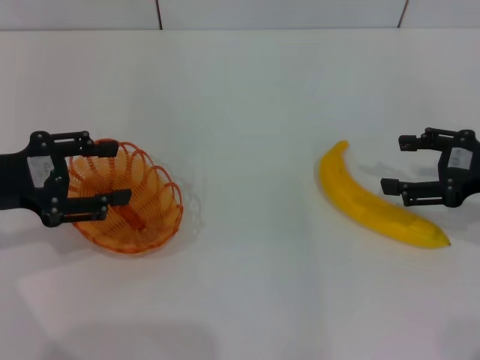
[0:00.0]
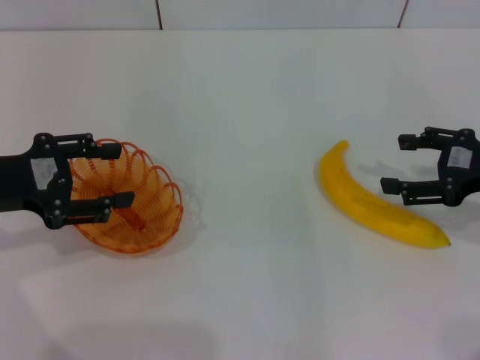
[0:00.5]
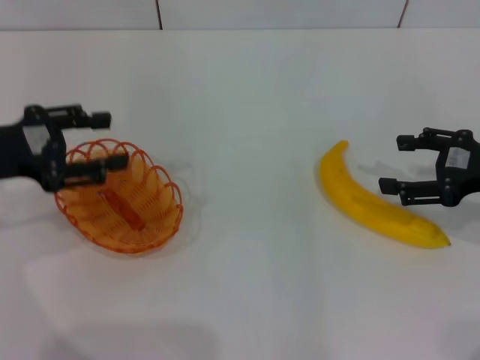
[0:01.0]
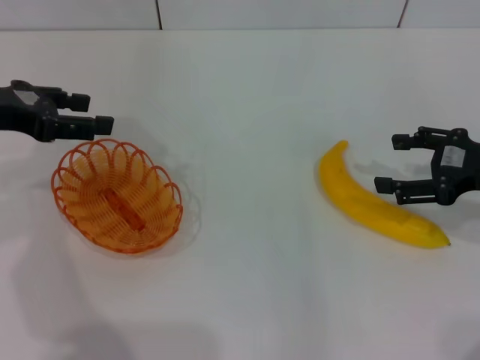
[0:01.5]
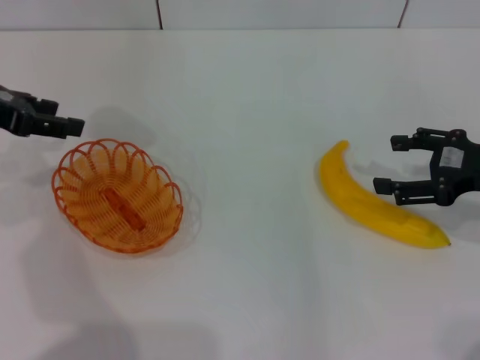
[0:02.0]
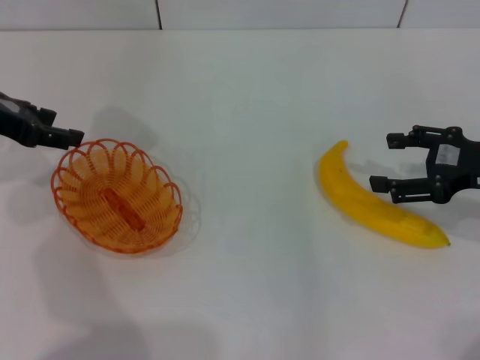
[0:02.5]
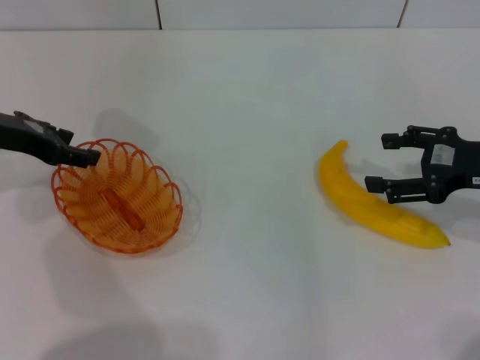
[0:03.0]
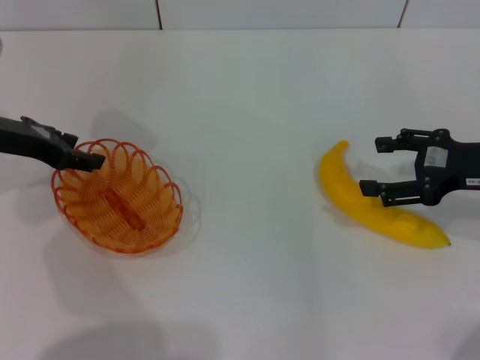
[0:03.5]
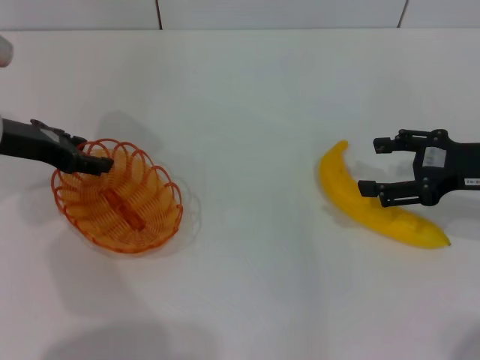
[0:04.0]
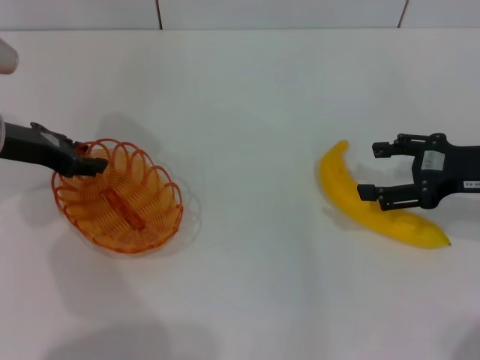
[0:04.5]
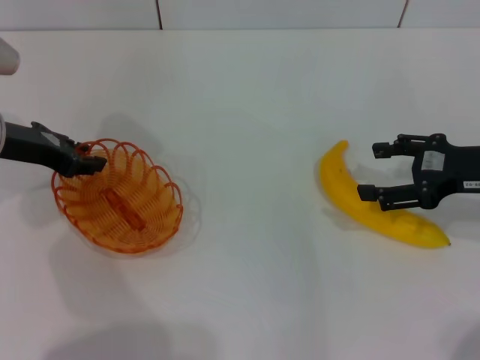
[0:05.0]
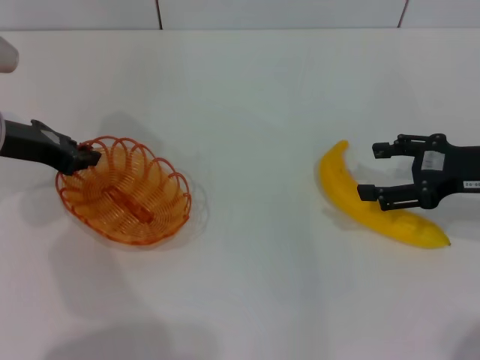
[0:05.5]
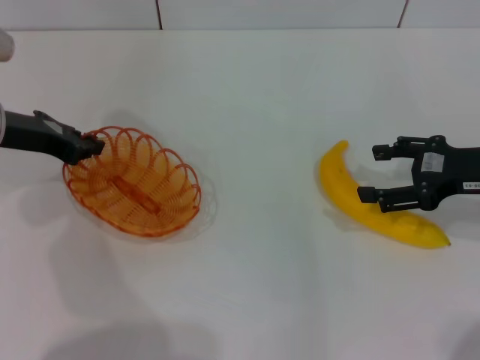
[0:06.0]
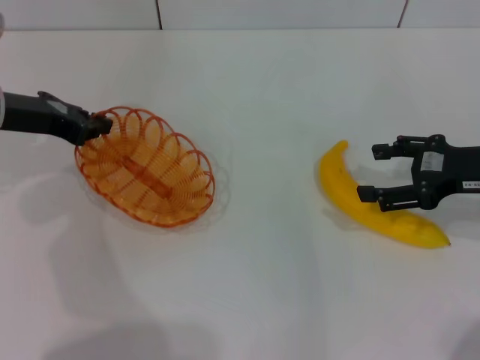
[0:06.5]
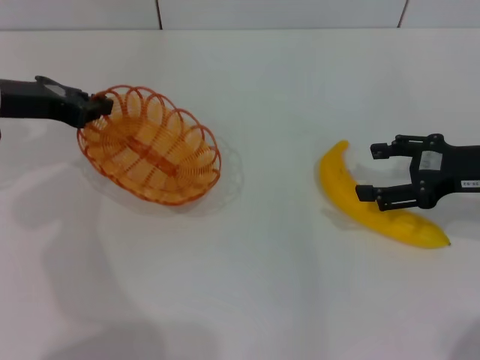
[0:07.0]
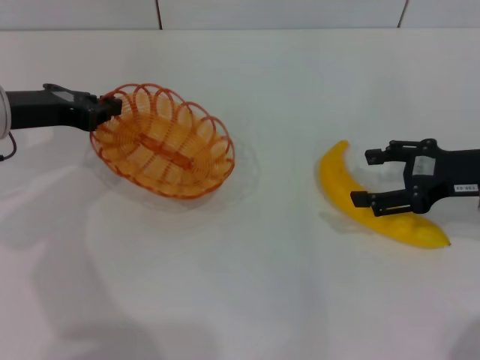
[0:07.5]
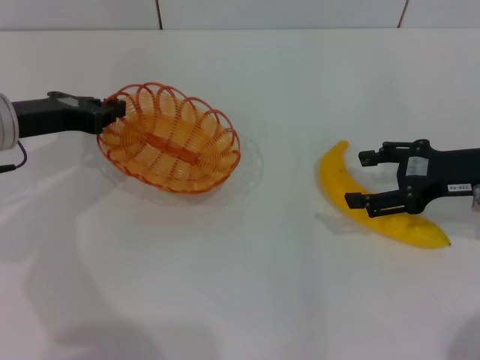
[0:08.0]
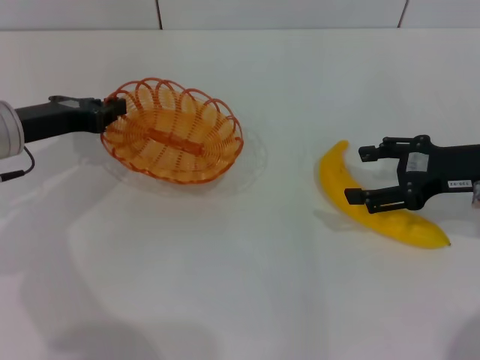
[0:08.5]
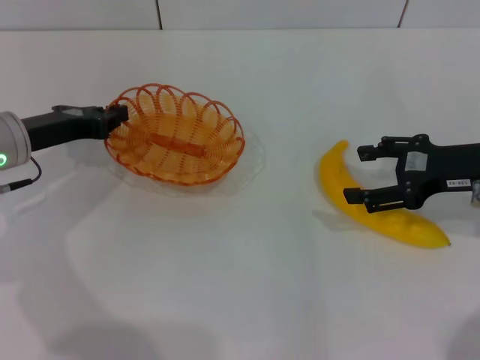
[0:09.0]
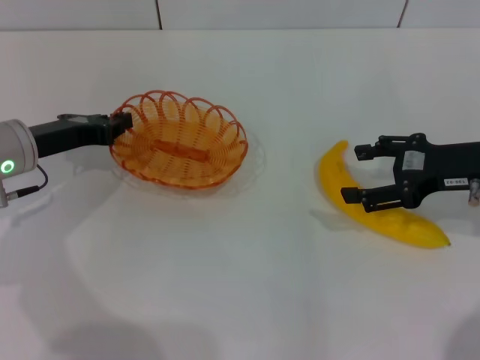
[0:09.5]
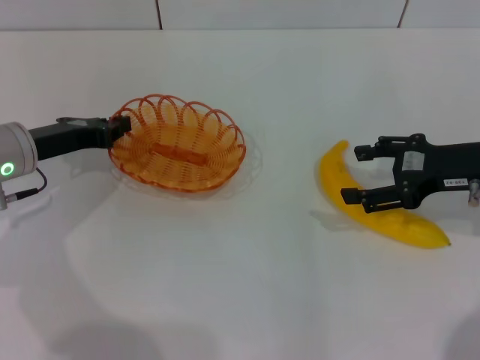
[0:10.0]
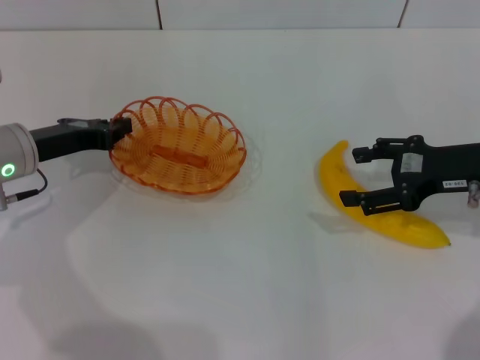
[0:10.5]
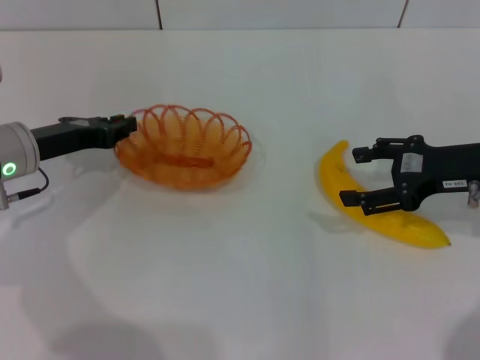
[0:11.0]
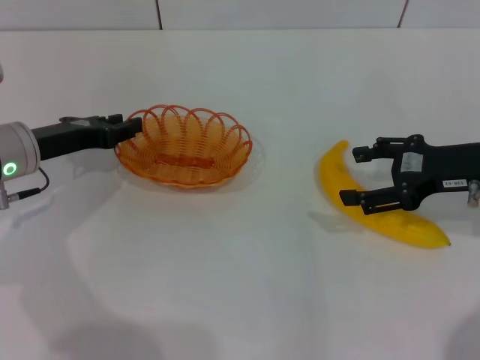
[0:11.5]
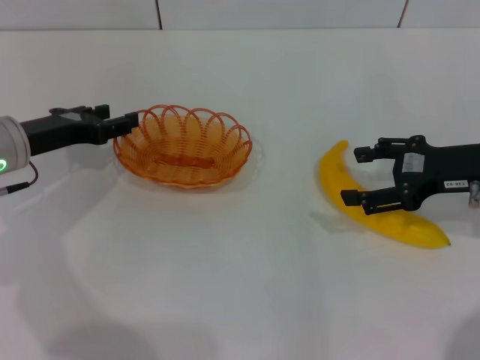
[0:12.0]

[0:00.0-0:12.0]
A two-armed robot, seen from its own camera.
Step, 0:00.0 to 0:07.0: Pick up the basket with the left gripper.
0:00.0 to 0:02.0: The left gripper travels forward and upward by about 10 cm.
0:02.0 to 0:04.0: The left gripper moves downward, some 5 cm.
0:04.0 to 0:06.0: The left gripper closes.
0:08.0 to 0:10.0: The grippers stay close to where they were, moving slightly.
0:10.0 to 0:12.0: The left gripper opens up.

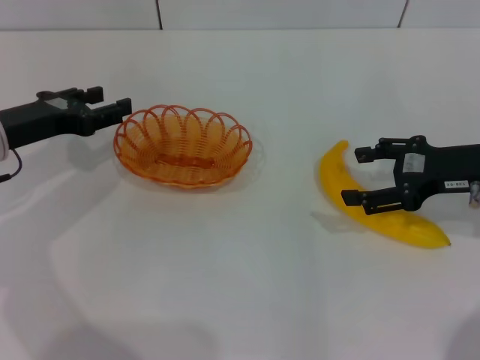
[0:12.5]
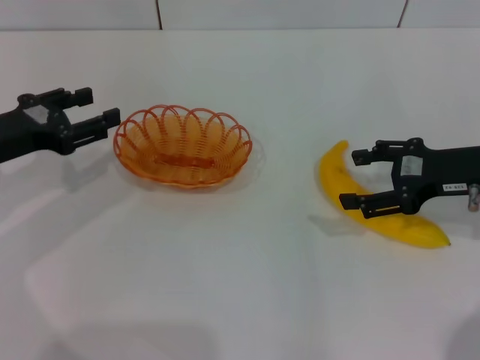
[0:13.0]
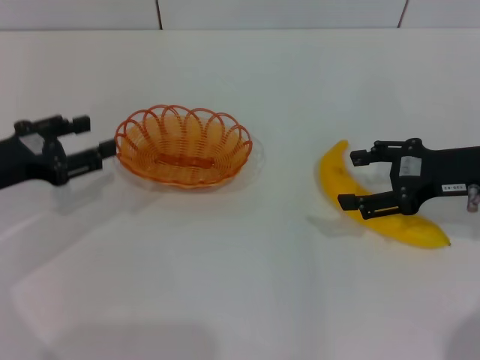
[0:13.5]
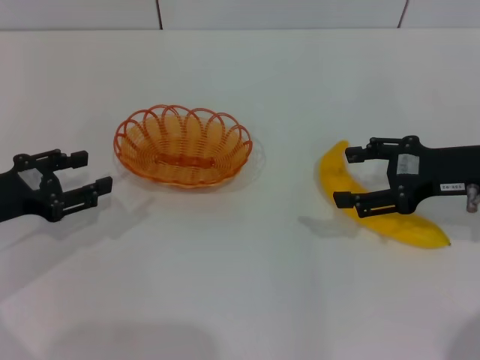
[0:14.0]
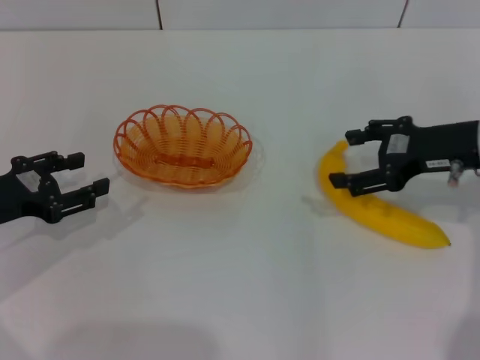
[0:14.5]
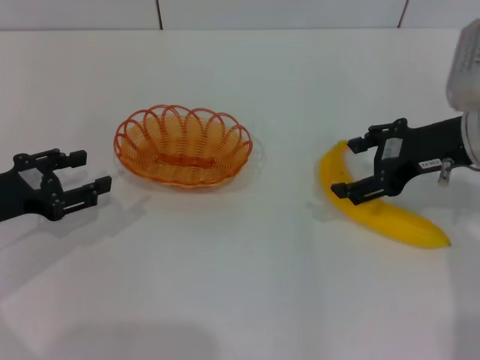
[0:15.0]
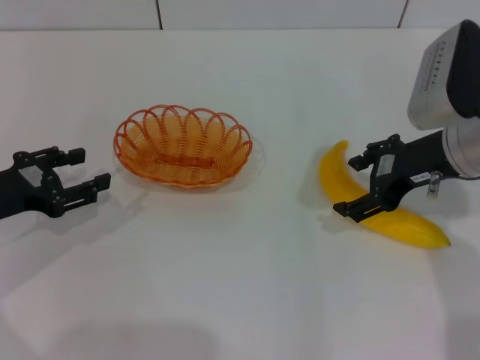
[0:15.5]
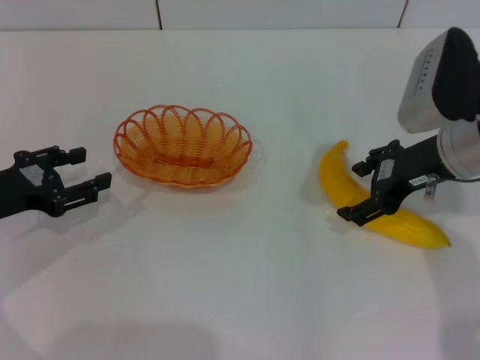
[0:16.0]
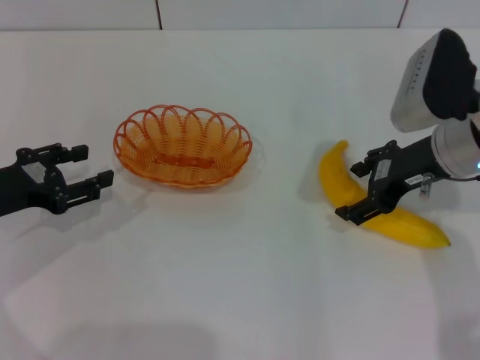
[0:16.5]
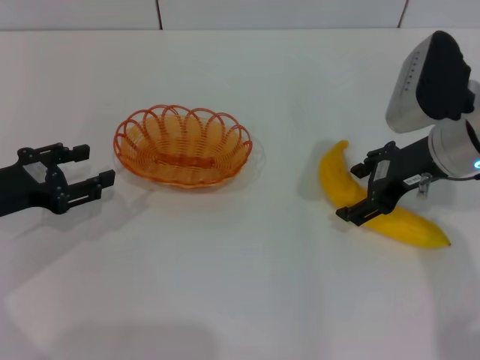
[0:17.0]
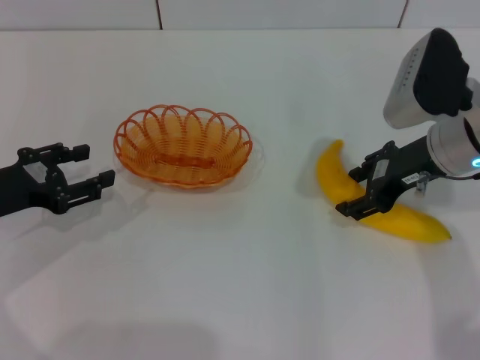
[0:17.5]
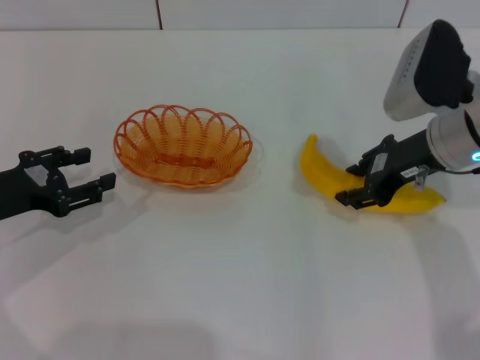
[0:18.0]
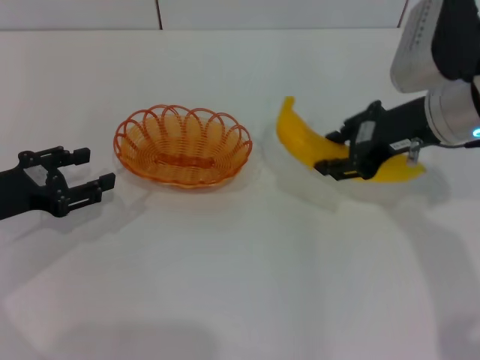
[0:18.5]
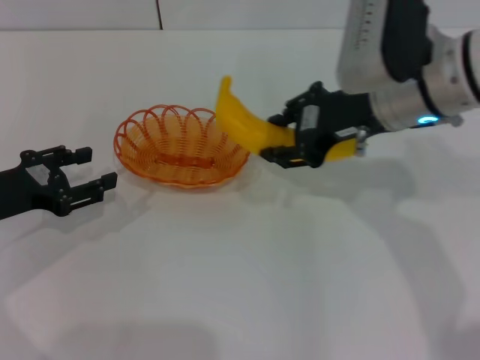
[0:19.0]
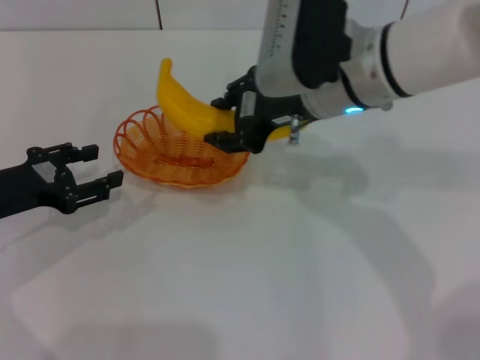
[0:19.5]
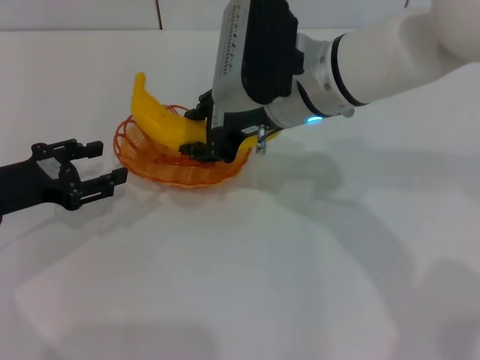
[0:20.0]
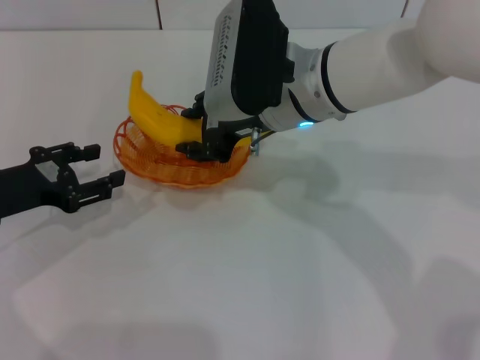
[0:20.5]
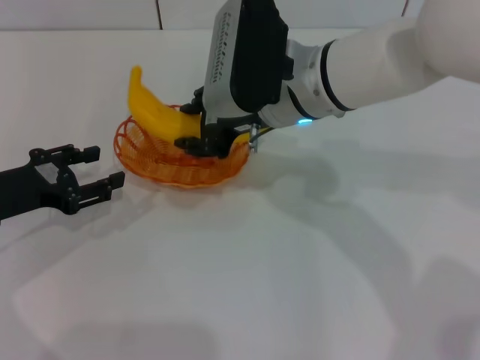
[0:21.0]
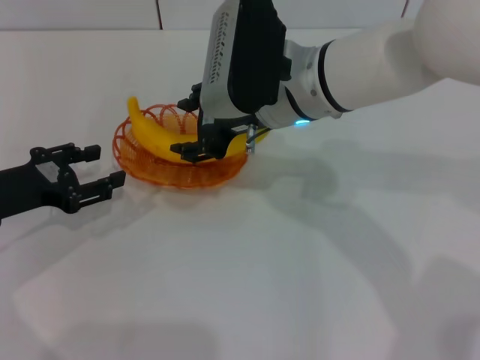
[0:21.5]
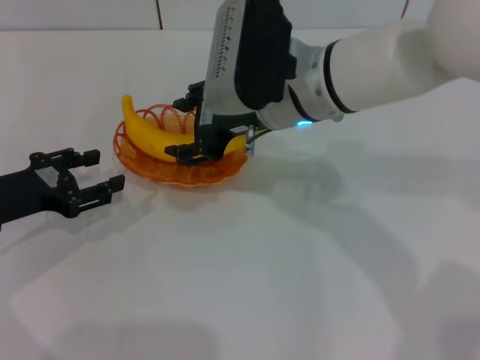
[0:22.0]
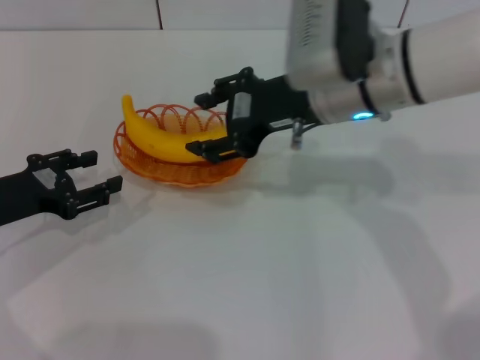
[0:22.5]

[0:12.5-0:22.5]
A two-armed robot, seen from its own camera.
Step, 0:14.0 to 0:18.5: Pick up the banana with the right gripper.
Step, 0:19.0 to 0:22.0: Place the banana into the basket with the right gripper.
0:12.5 to 0:14.5: The left gripper travels backward by approximately 5 cm.
0:16.5 to 0:18.5: The right gripper closes up.
0:18.5 to 0:20.5: The right gripper goes some 15 cm to the left.
0:20.5 to 0:22.5: The right gripper moves some 5 cm, and opens.

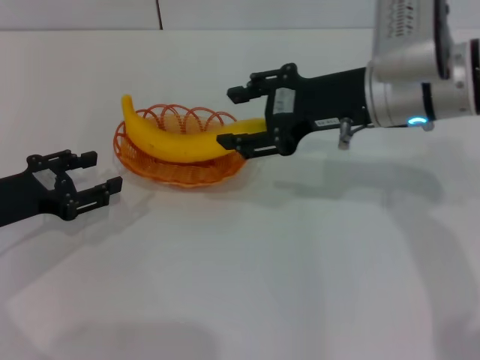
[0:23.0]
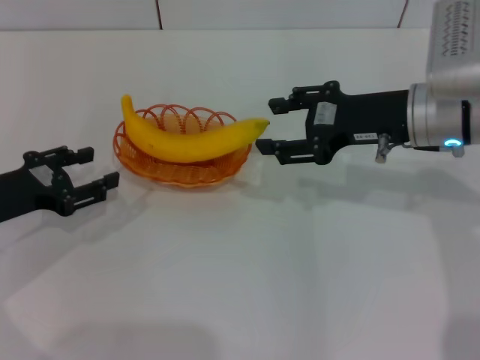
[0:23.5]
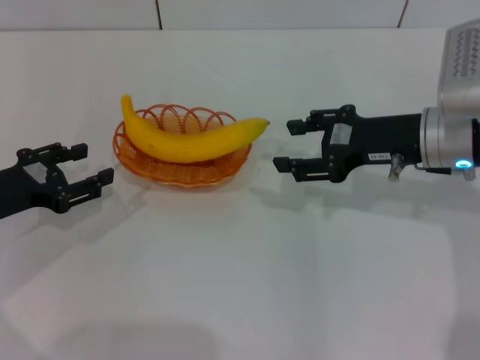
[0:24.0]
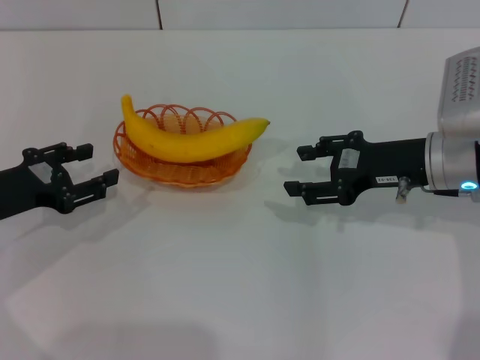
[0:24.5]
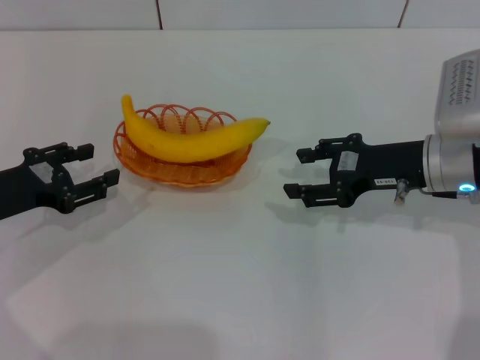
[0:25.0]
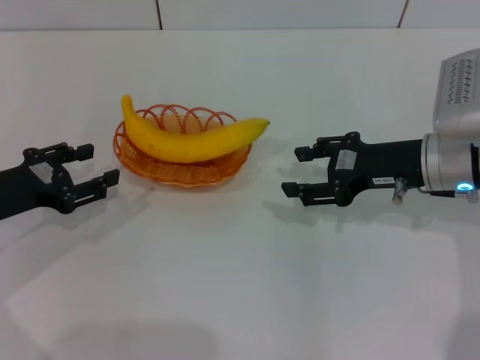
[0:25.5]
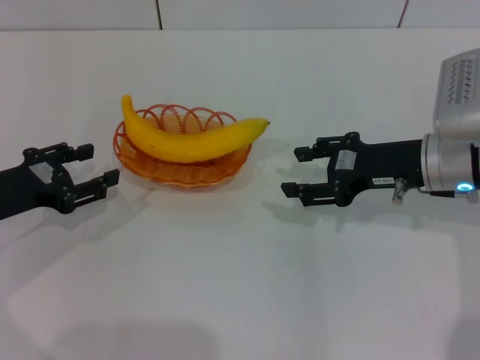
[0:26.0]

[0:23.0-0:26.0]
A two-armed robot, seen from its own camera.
0:23.0 to 0:24.5: The right gripper shifts roughly 10 cm downward and to the right.
0:24.5 to 0:26.0: Neither gripper changes place.

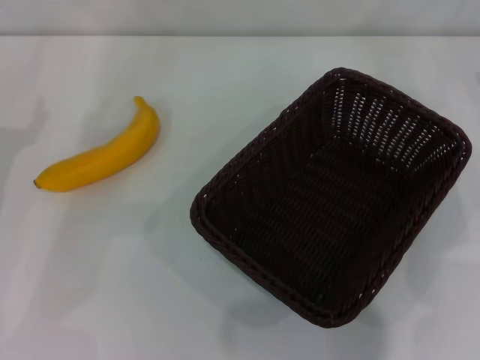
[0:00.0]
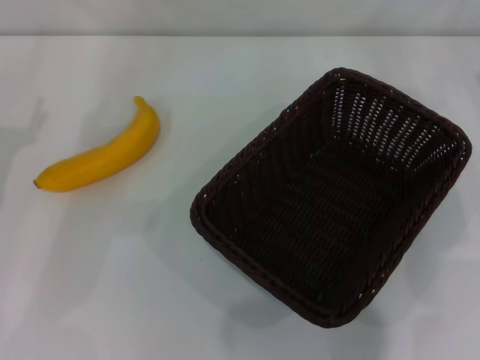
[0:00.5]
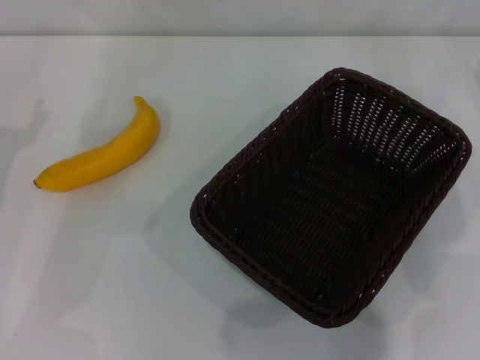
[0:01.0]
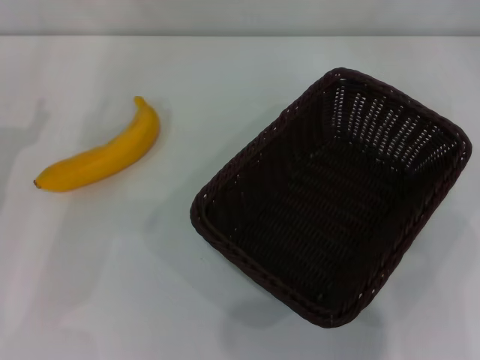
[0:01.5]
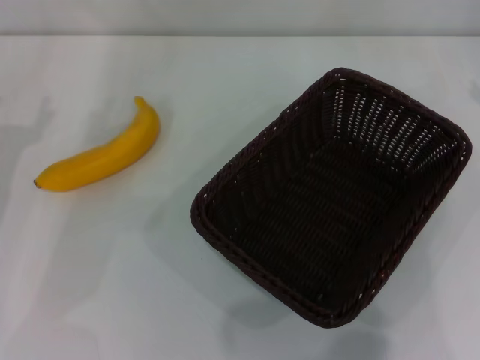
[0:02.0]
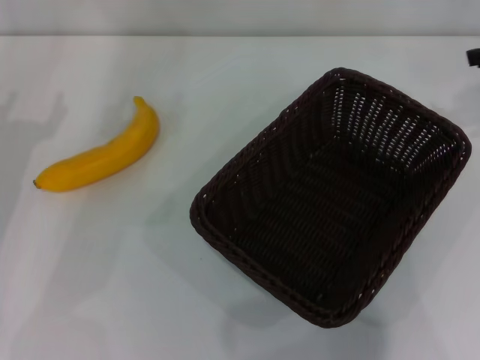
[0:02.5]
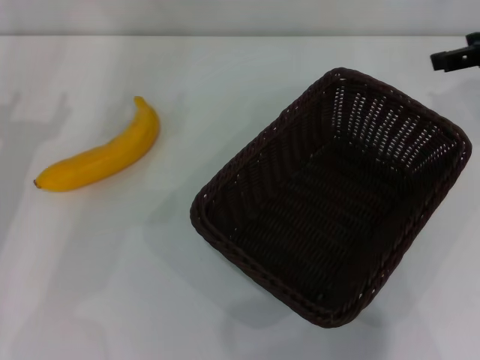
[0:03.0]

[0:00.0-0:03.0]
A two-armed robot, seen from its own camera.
0:01.5 to 0:03.0: The right gripper moves to the left and upward, about 10 cm.
